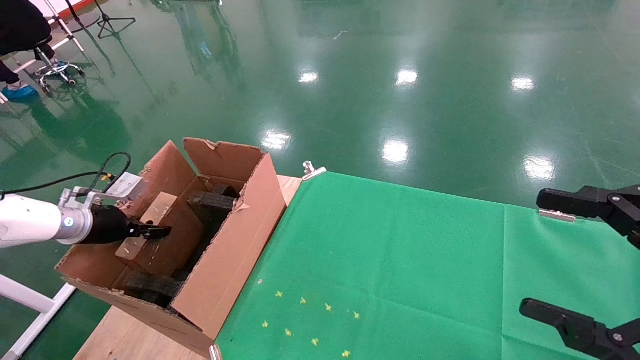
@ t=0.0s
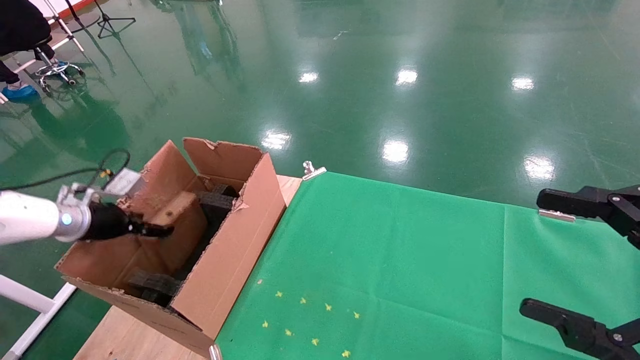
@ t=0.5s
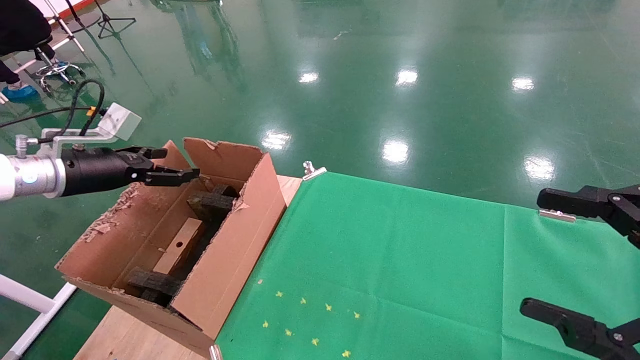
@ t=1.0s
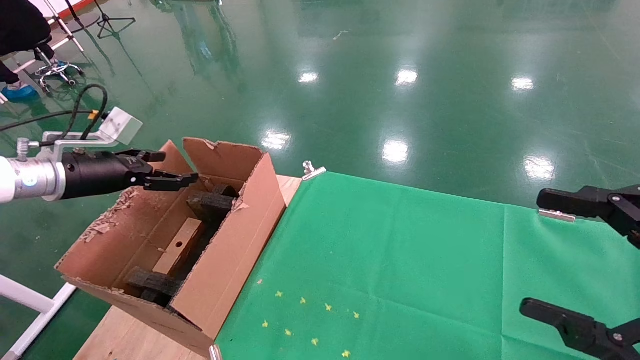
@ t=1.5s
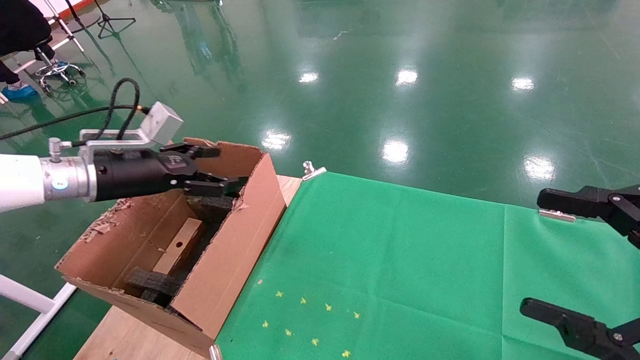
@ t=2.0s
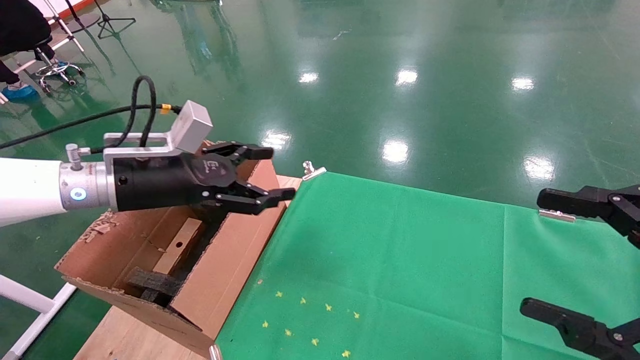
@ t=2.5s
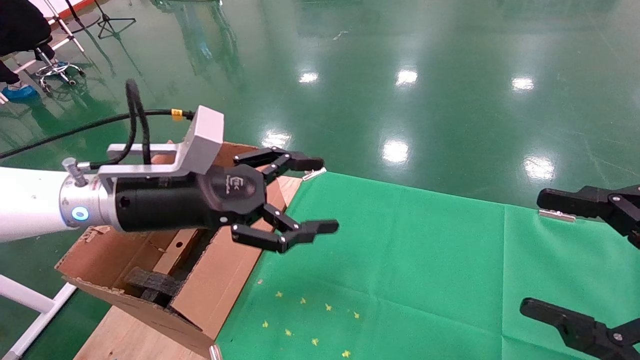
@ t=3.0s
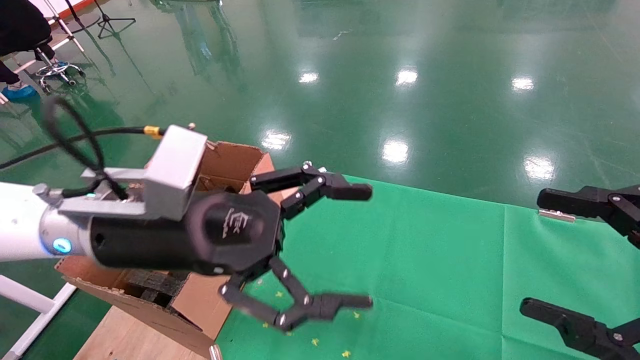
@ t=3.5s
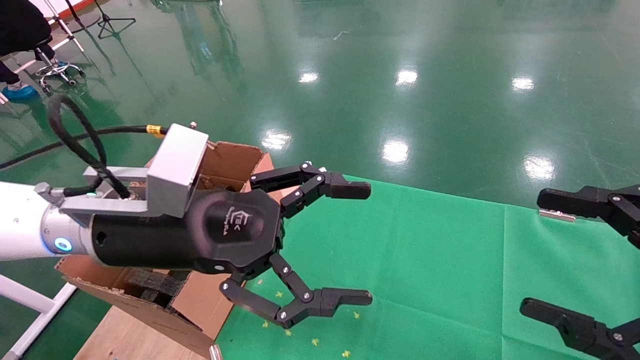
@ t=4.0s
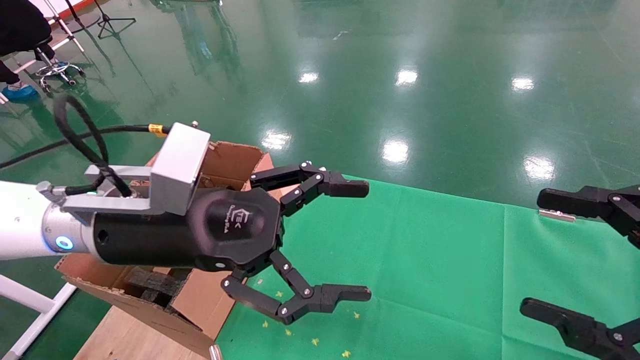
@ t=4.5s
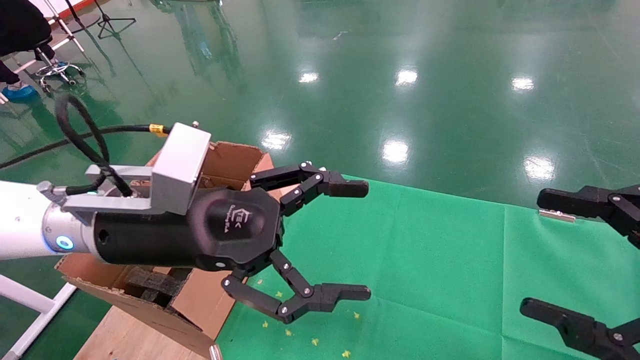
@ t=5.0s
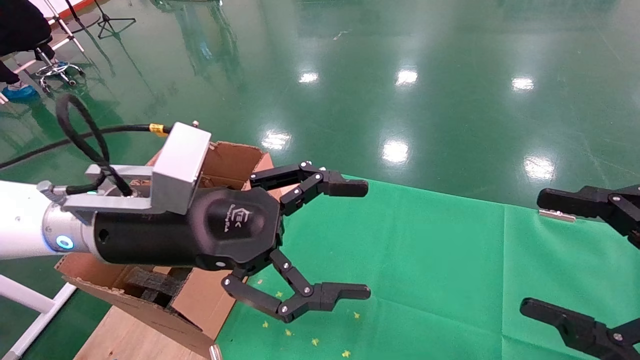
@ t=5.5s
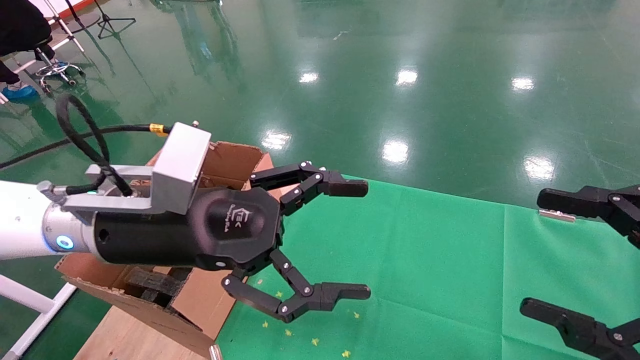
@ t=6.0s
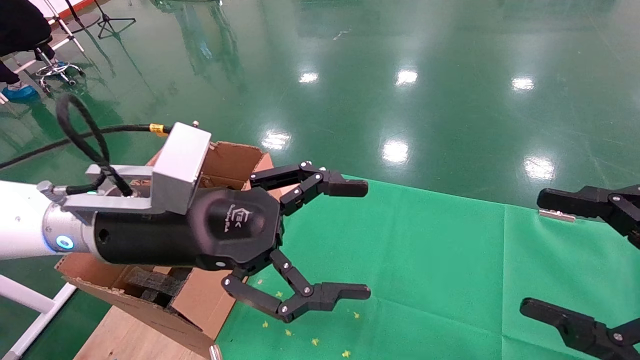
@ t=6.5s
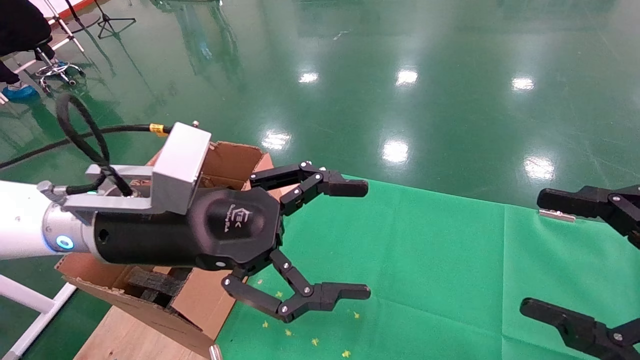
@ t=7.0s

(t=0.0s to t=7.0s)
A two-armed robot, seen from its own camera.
Task of the whole recording: using a robotic arm to pick up a cardboard box and palace it the carton.
t=0.0s - t=2.0s: The left gripper goes roughly 15 cm to the right and upward, and opens.
t=2.0s - t=3.5s: The left gripper goes some 20 cm to the right and backward.
t=3.5s - t=7.0s: Both grippers stay about where they are.

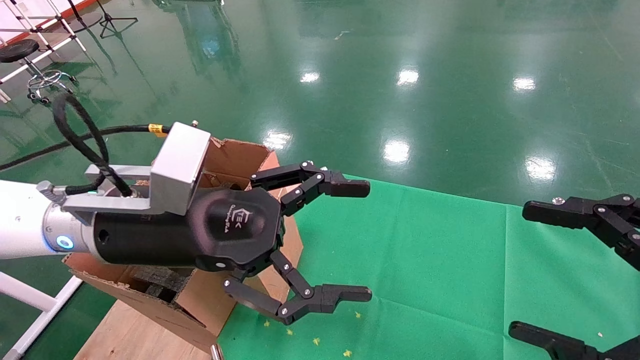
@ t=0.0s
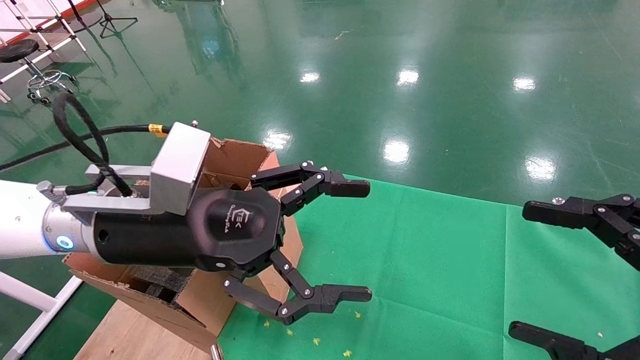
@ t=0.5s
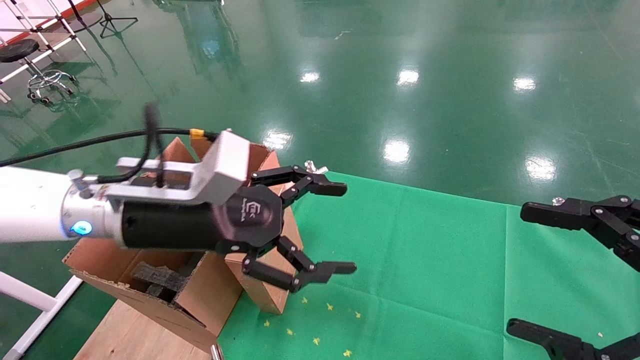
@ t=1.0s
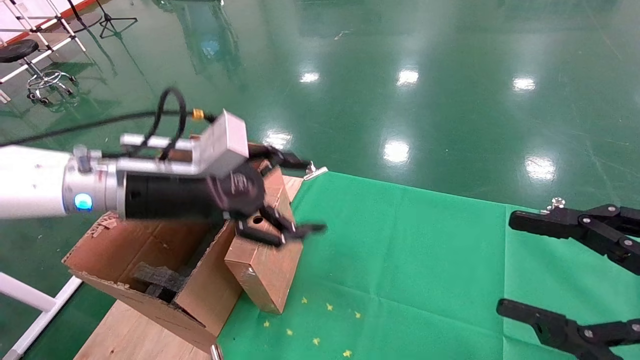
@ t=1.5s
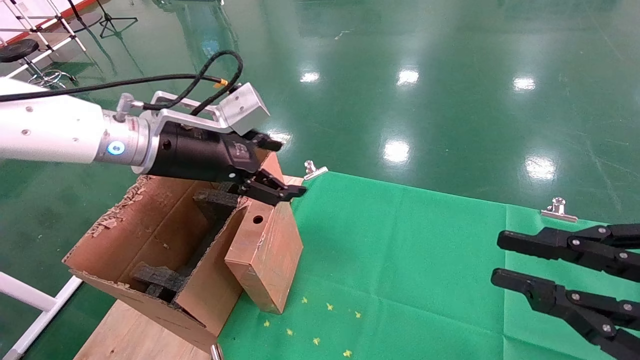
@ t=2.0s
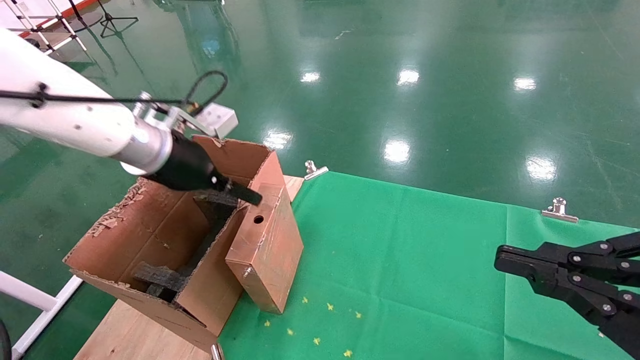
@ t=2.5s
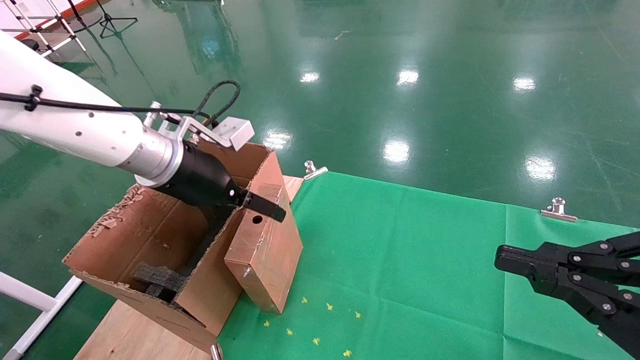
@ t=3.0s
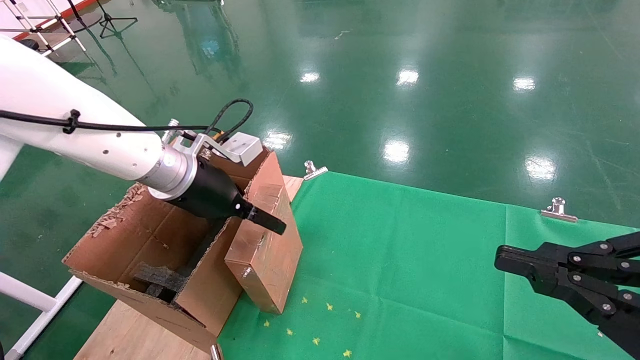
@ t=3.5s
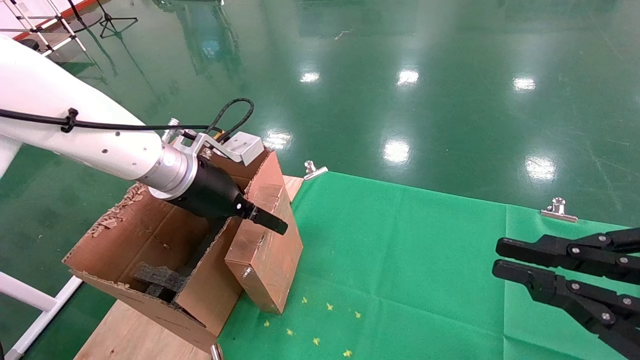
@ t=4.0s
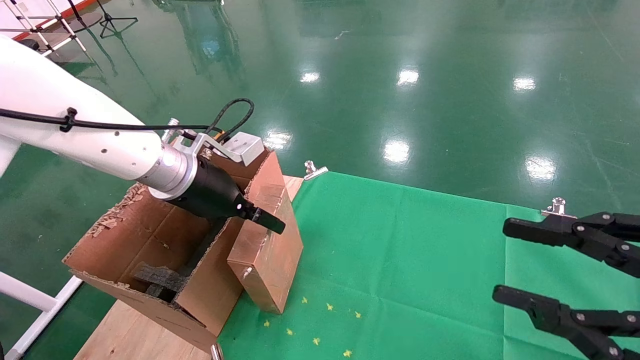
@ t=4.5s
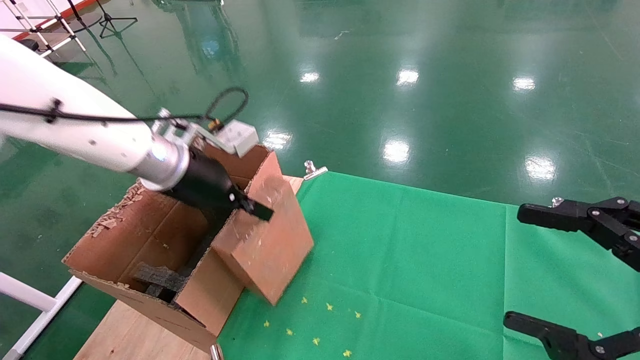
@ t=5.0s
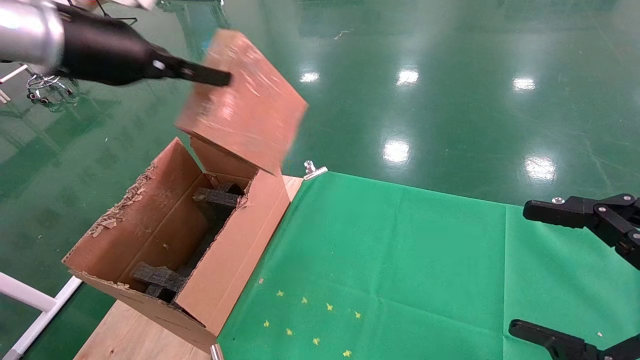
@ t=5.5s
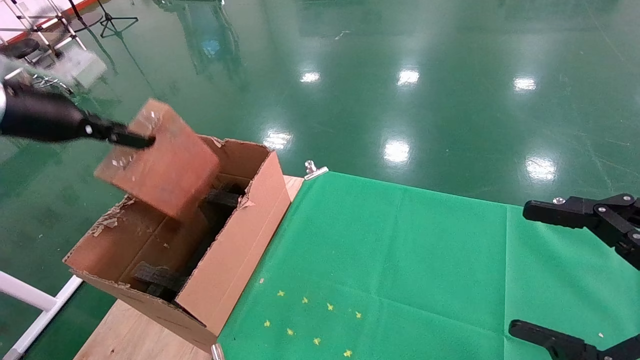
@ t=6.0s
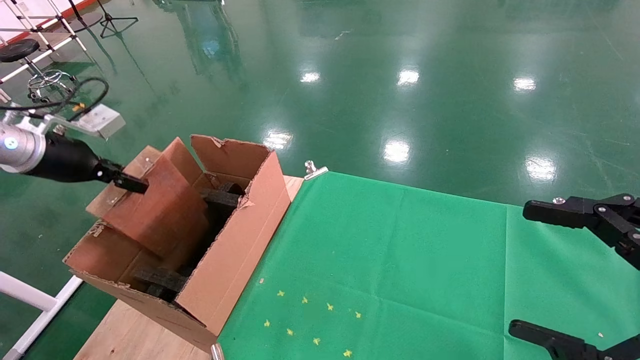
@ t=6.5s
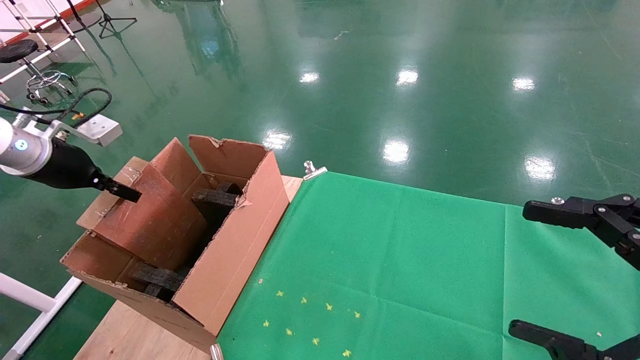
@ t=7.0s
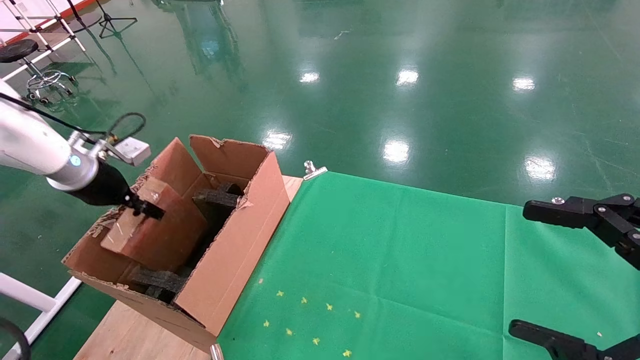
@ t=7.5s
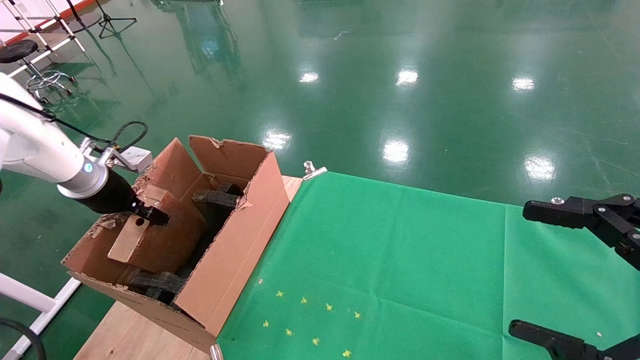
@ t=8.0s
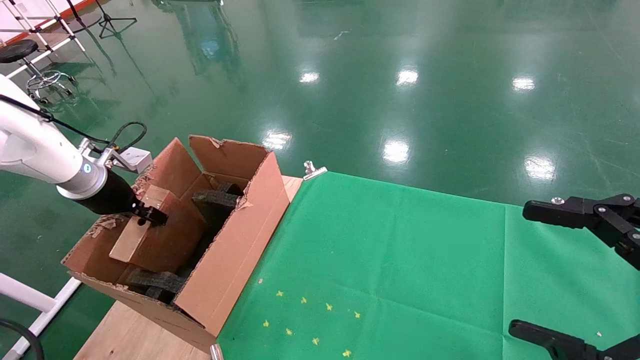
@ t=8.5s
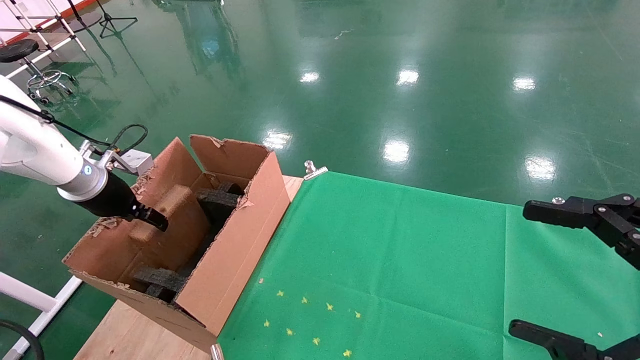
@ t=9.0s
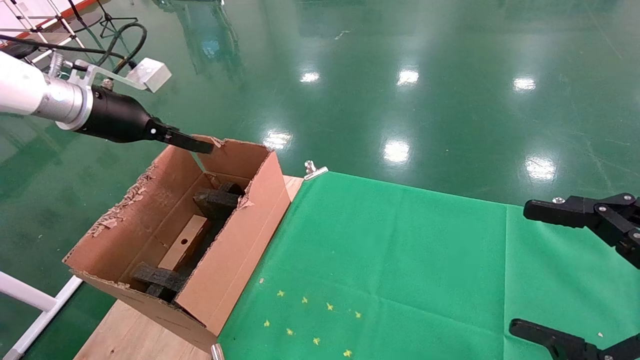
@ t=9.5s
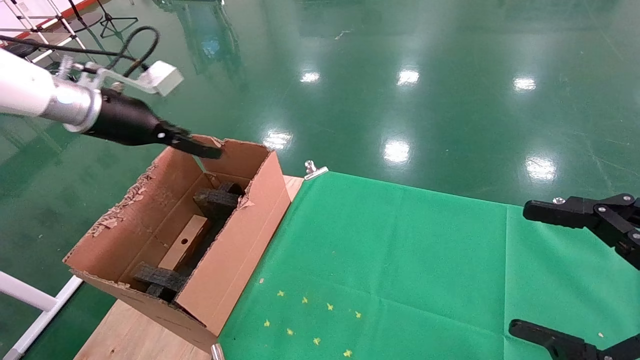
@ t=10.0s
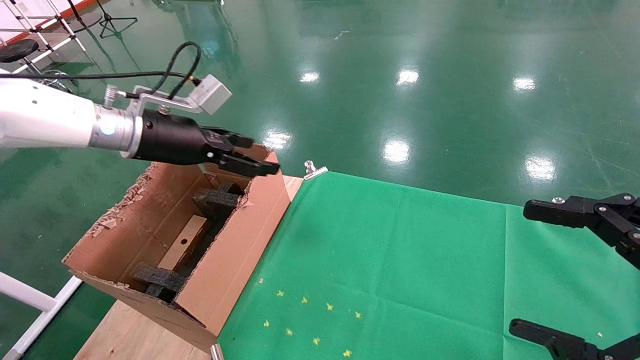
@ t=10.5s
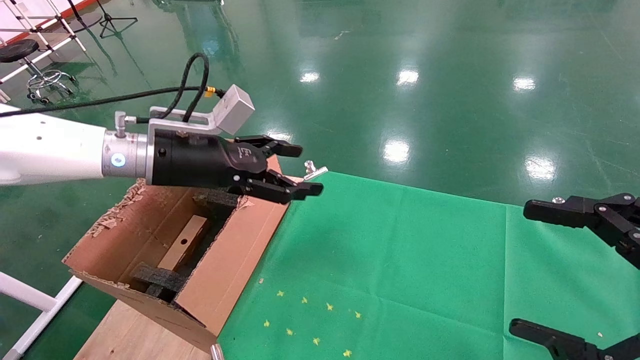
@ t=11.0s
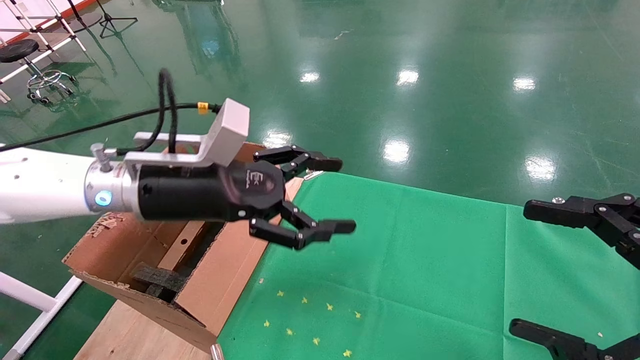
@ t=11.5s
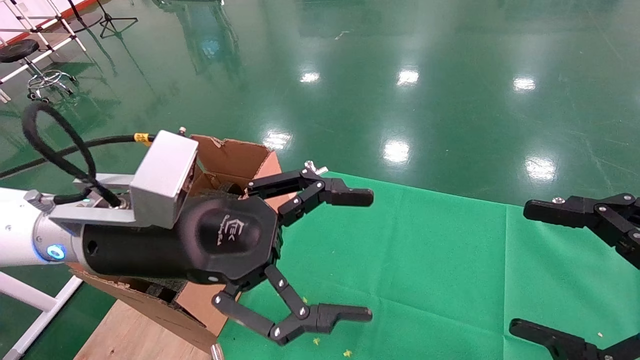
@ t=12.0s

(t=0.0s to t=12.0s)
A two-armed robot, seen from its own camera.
Task of the whole recording: using a robotic arm to pick up a cardboard box and palace it the carton.
Step, t=1.5s - t=4.5s: Pick up the mouse and the power cord paper box.
Step, t=5.0s - t=8.5s: Place the mouse and the power cord paper box into the container.
t=0.0s - t=2.0s: The right gripper closes up; the left gripper travels forward by some 10 cm.
t=4.0s - t=6.0s: The left gripper moves to the left and upward, approximately 25 cm, and closes its fingers; the right gripper opens up.
t=6.0s - t=8.0s: The left gripper heads downward and forward, covering about 15 cm.
t=8.0s - t=10.0s: The left gripper moves upward and to the right, some 15 cm, and opens its fingers.
t=10.0s - t=12.0s: The left gripper goes some 25 cm to the right and backward.

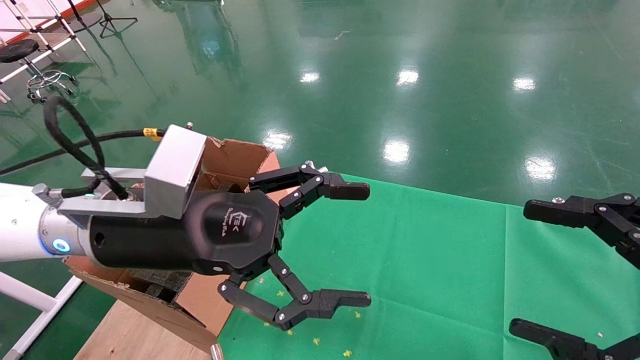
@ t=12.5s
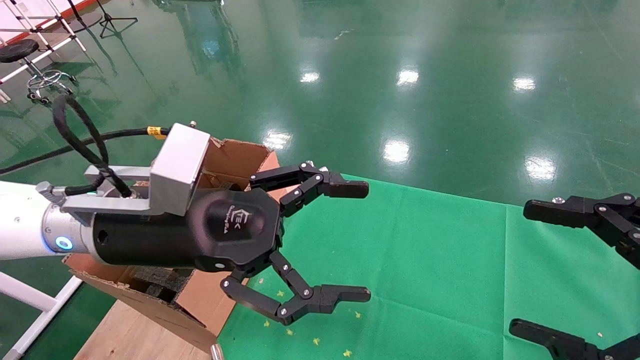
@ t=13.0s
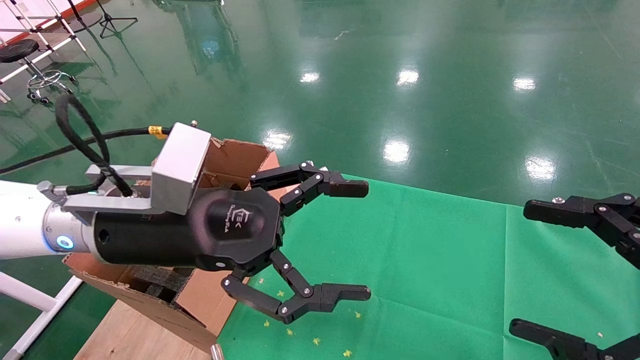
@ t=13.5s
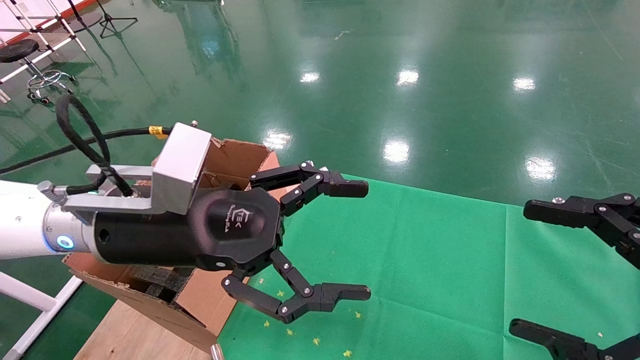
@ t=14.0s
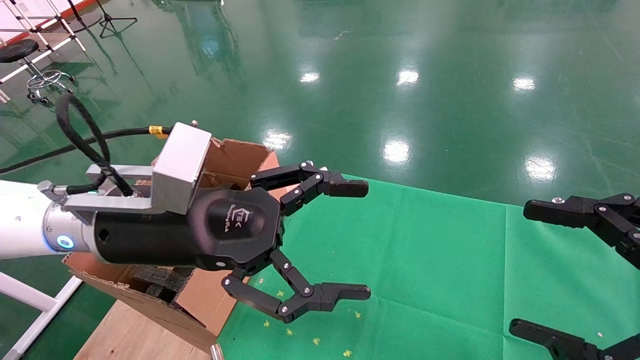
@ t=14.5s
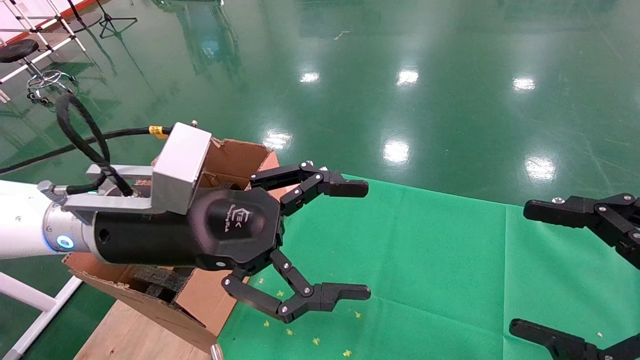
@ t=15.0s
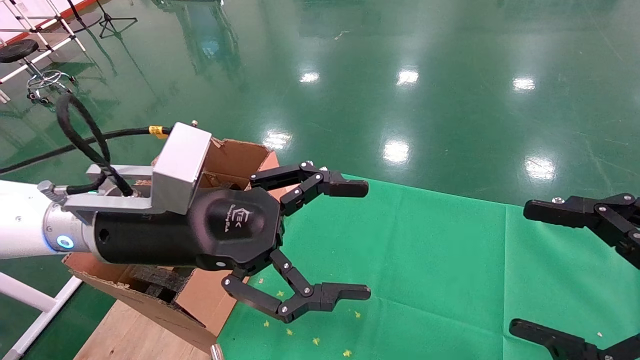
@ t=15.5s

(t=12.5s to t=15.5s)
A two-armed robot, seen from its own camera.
Task of the whole recording: using a robotic arm to pick up a cardboard box and palace it the carton.
t=12.5s - t=15.5s: Both grippers stay about where they are.
